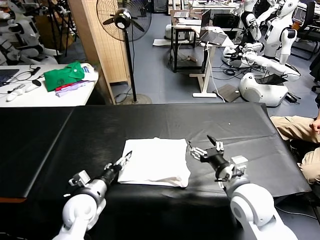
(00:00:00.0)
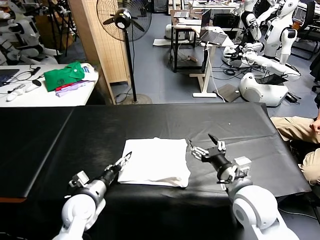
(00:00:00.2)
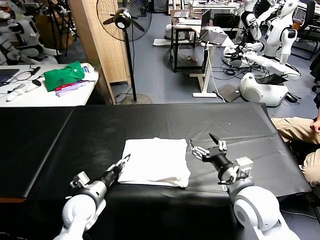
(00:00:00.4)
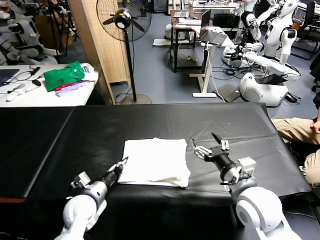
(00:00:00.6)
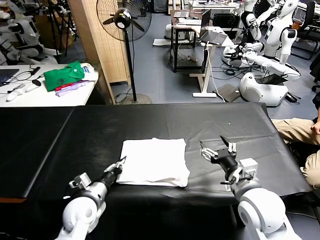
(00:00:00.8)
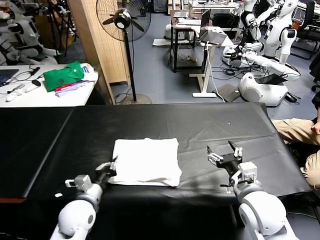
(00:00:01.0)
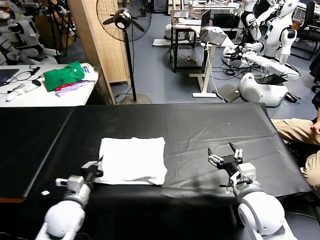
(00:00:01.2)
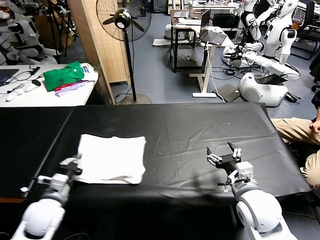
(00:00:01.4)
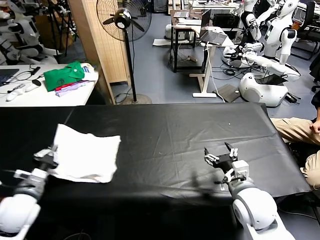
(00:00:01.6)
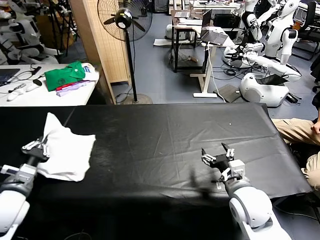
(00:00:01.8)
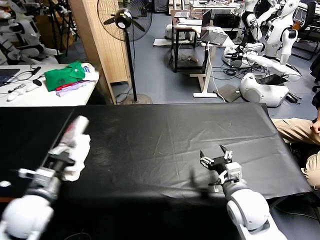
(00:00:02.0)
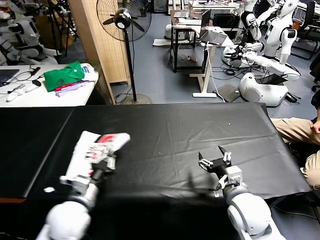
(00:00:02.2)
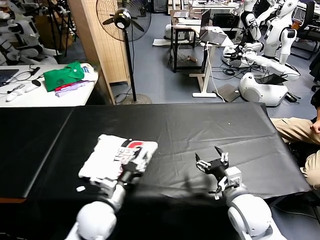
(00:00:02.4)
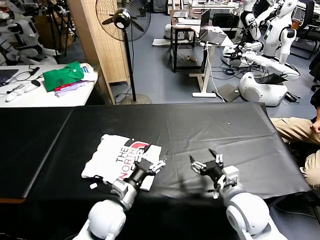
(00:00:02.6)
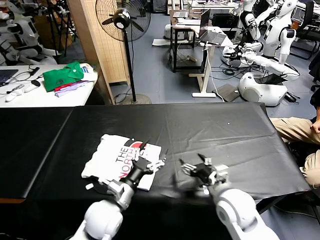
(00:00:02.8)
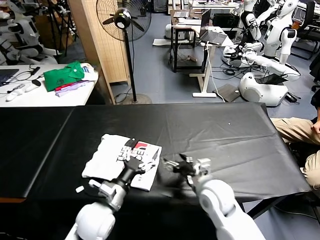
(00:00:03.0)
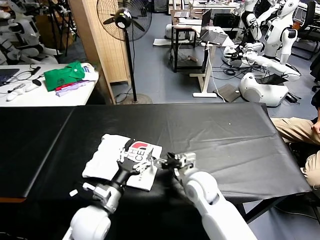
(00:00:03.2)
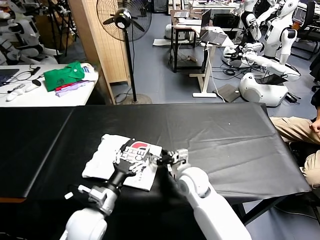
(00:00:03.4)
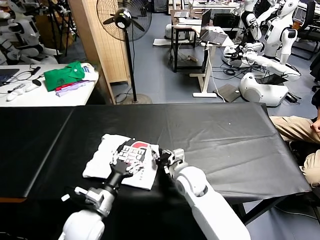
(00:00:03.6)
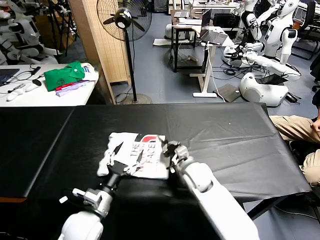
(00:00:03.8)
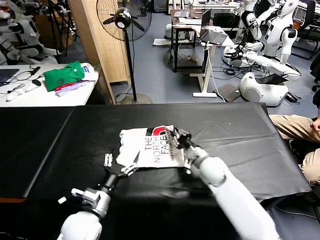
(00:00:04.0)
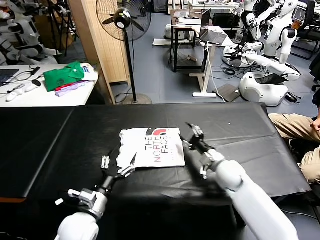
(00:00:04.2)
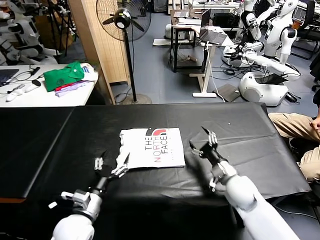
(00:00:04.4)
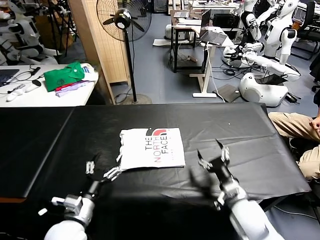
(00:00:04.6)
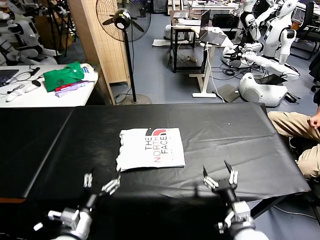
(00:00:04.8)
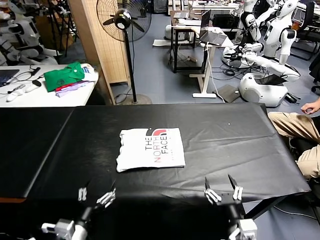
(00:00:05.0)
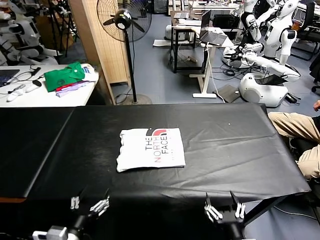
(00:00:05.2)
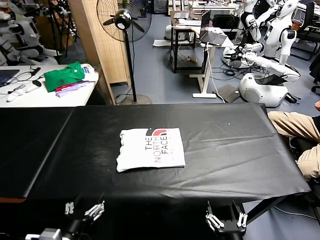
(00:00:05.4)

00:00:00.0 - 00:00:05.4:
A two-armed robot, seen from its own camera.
Task of the whole recording: fold and organize the clothes.
Step, 00:00:00.0 - 00:00:02.4: Flip the folded clothes over with left gripper.
Step, 00:00:02.6 - 00:00:04.0: Drag the clothes to the center of the table.
00:00:00.0 - 00:00:01.4: The left gripper travels to the left by about 10 cm, and closes up.
00:00:01.4 - 00:00:02.8: The right gripper changes place by some 5 cm, while the left gripper shifts some 15 cm to the right, and opens.
00:00:02.8 - 00:00:04.0: The left gripper goes about 5 cm to the left. Meanwhile the right gripper shifts roughly 15 cm forward and downward, and closes.
00:00:04.0 - 00:00:05.4: The left gripper travels backward by about 10 cm; the right gripper goes some 35 cm backward, and opens.
